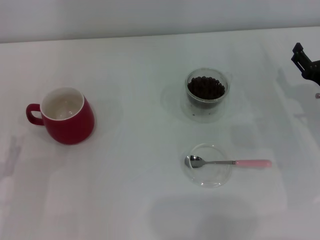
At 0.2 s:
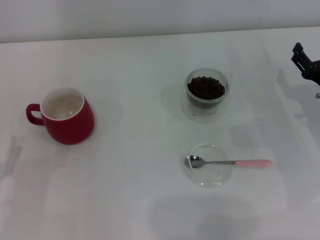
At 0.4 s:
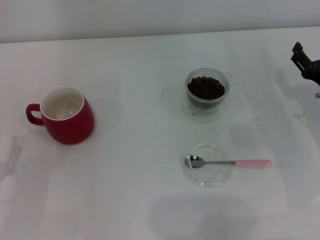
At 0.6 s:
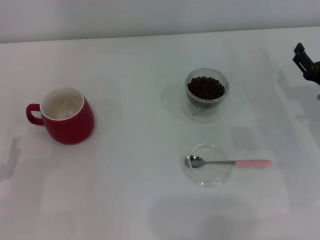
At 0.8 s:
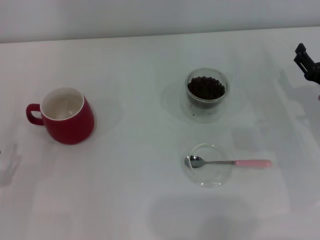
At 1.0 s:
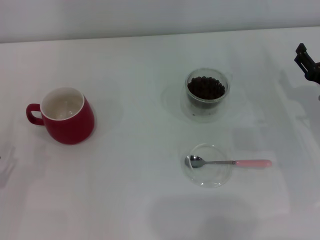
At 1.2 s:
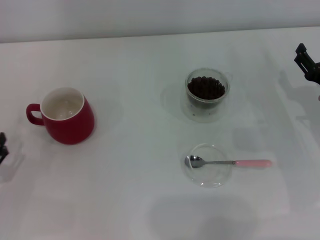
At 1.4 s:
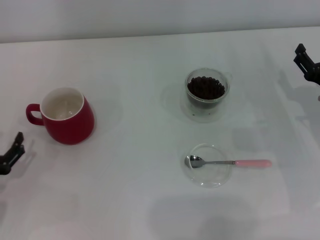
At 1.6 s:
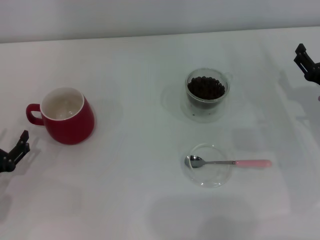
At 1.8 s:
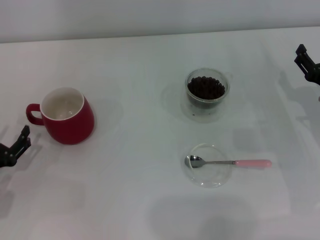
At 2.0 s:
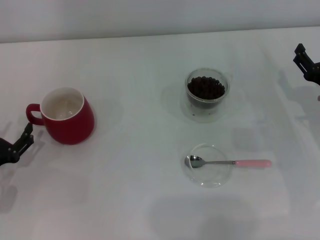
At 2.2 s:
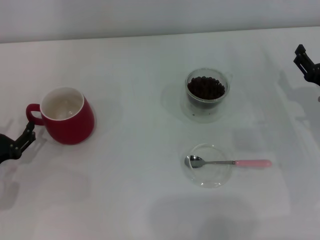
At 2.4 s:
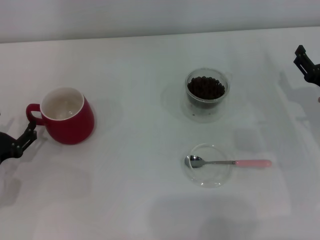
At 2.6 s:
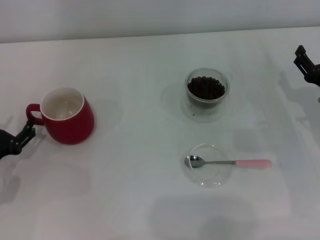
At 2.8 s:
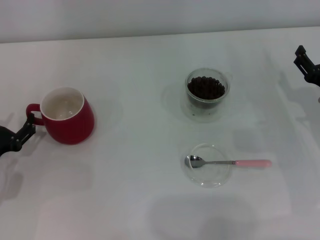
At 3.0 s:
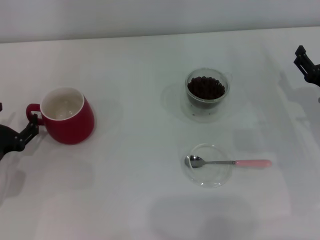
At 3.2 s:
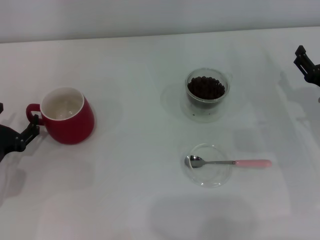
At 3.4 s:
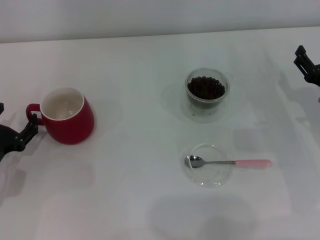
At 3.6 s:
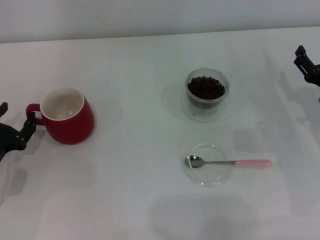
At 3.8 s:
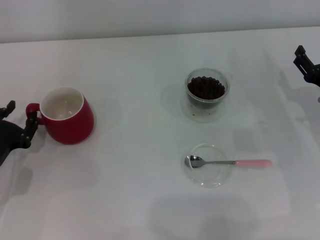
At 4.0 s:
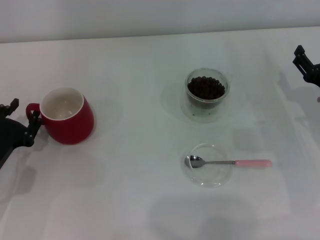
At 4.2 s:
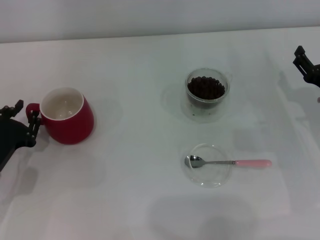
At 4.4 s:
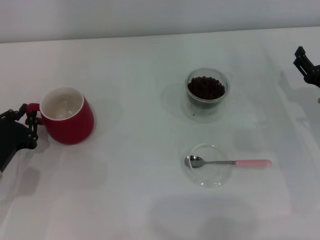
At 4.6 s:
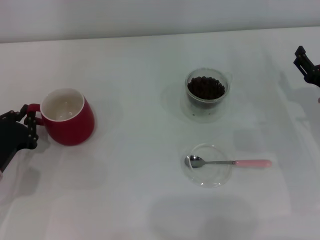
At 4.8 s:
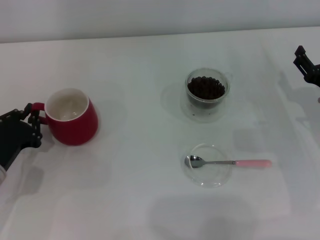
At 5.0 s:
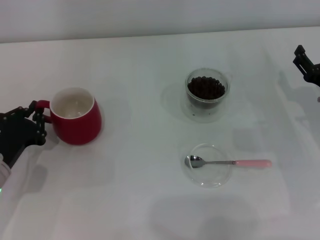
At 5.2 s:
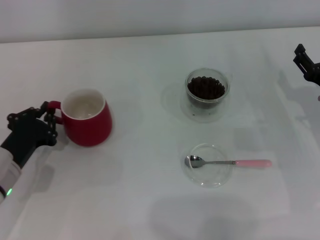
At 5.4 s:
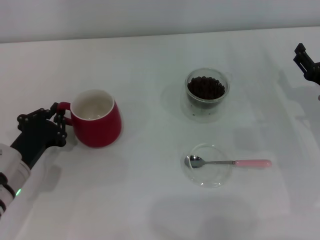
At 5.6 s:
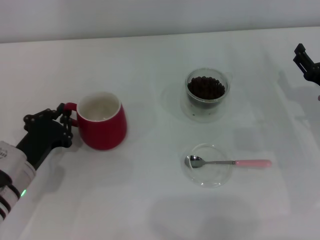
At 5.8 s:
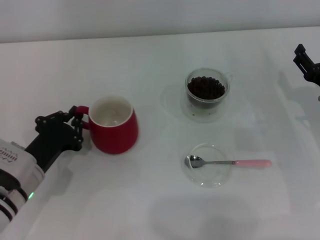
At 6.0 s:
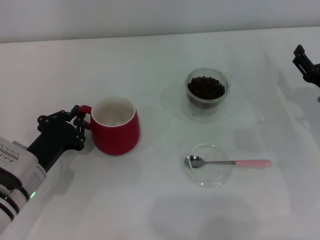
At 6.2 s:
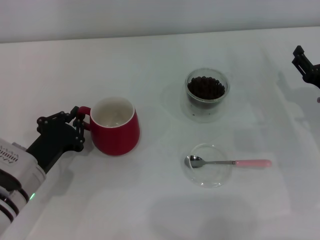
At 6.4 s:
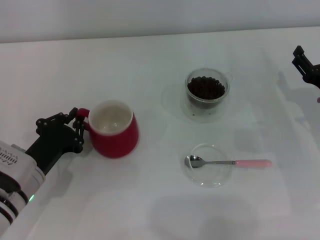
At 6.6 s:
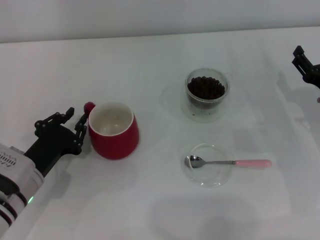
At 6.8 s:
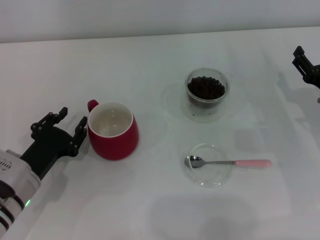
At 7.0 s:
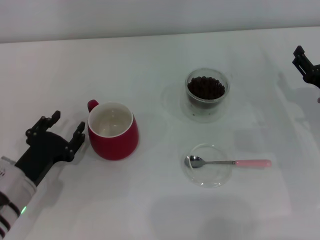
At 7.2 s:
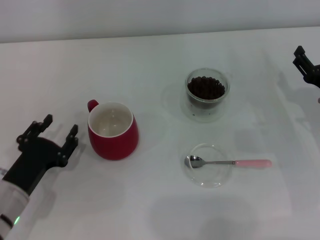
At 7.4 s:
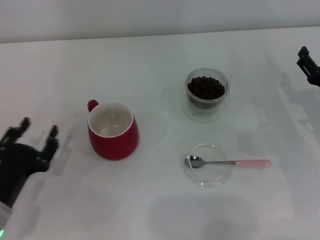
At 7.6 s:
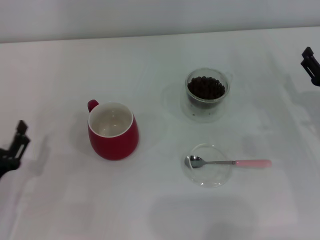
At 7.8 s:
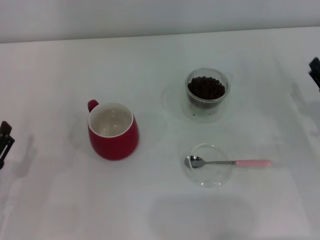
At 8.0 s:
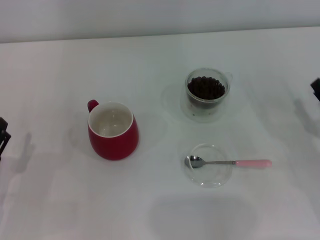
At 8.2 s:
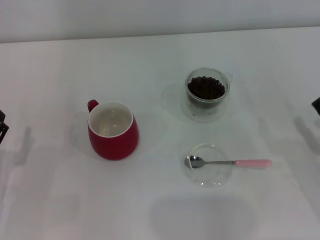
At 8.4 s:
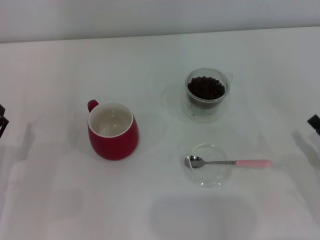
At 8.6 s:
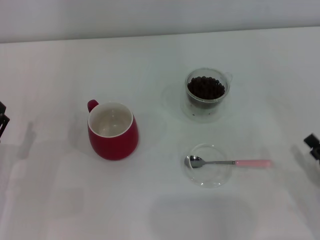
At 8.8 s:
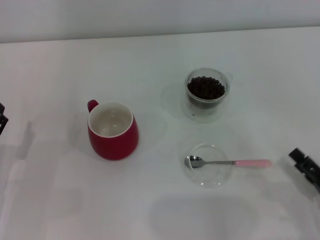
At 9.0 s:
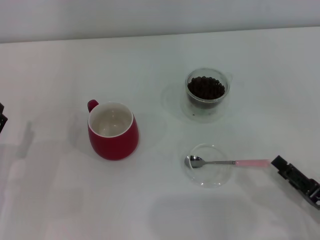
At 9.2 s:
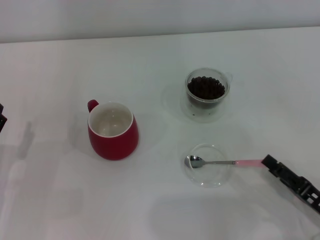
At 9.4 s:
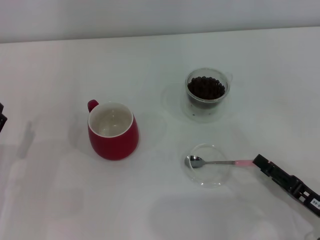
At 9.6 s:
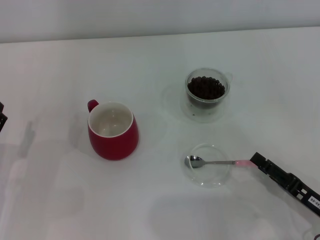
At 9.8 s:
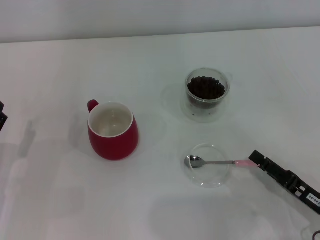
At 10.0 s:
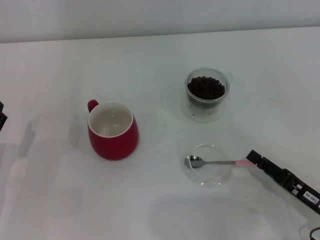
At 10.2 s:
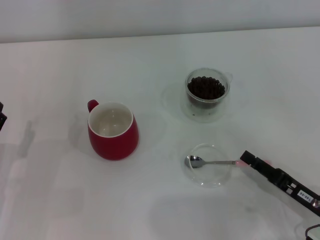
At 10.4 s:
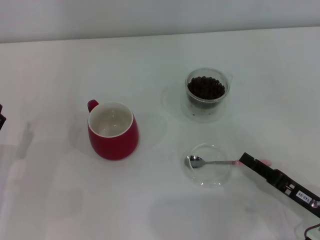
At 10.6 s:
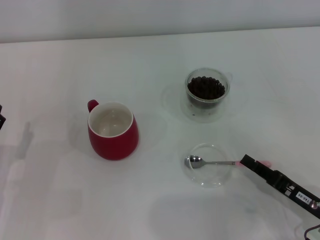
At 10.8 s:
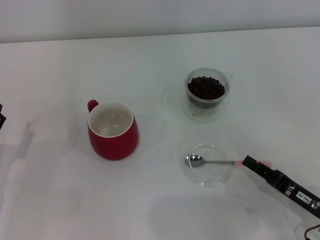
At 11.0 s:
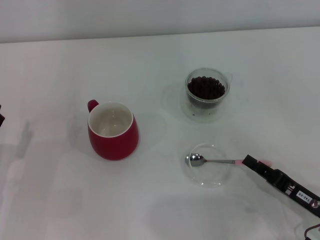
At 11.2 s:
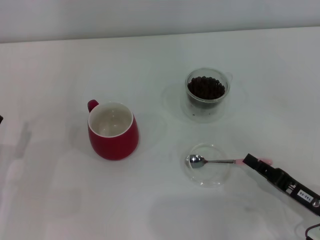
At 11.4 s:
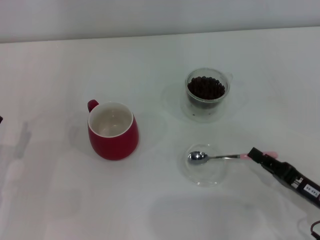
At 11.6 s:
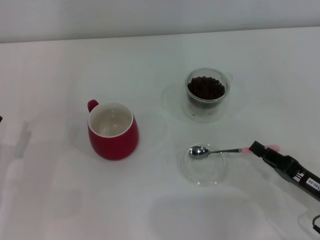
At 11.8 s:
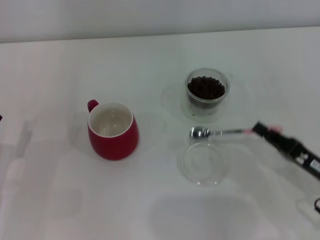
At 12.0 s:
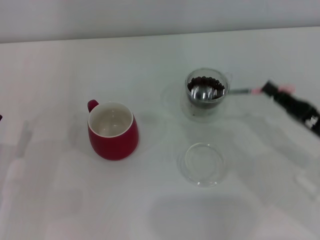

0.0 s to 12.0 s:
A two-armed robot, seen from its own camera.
Task of the whole recording: Use a pink spoon to take out the coffee beans from the glass and pour them into the red cup.
Step, 0.0 to 7.0 s: Move the cup to the center of view with the left gripper.
Step, 7.2 to 11.6 s: Pick up the spoon with the right gripper.
1.6 to 3.0 s: The grippers move only a little.
3.0 to 4.4 s: The left gripper closes.
4.4 to 6.0 s: The left gripper travels to the right by approximately 5 cm.
6.0 to 7.6 s: The left gripper travels backward and to the left by approximately 10 cm, and opens its fingers.
7.6 to 9.0 s: The right gripper heads backward, covering approximately 15 cm.
9.0 to 10.4 s: The right gripper closes.
10.4 to 12.0 s: The right gripper is displaced forward and upward by about 10 cm, and closes.

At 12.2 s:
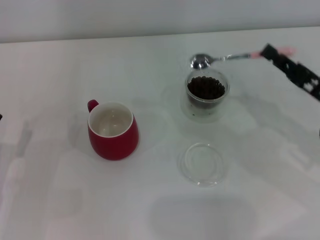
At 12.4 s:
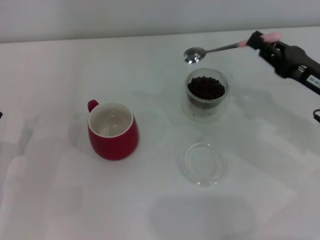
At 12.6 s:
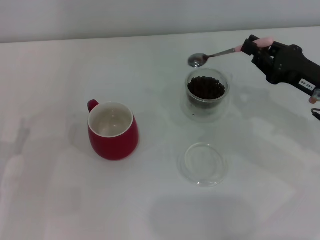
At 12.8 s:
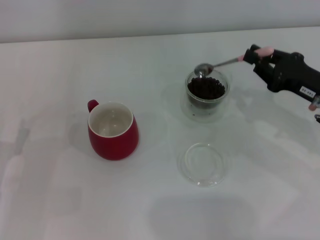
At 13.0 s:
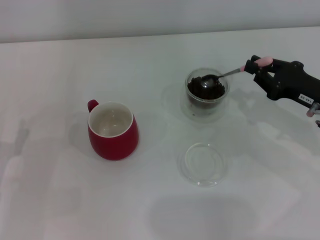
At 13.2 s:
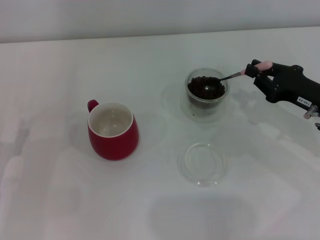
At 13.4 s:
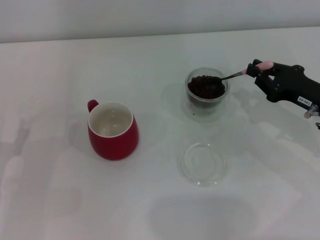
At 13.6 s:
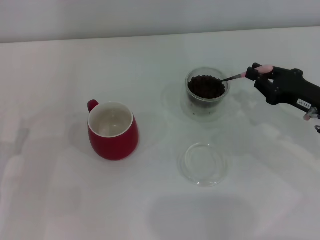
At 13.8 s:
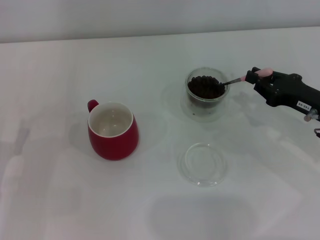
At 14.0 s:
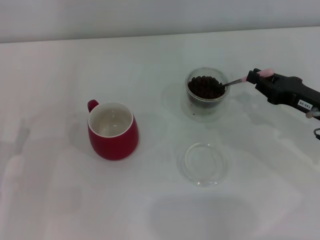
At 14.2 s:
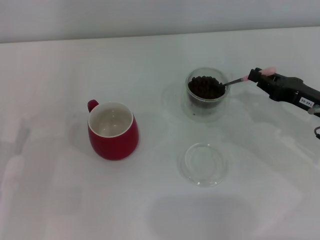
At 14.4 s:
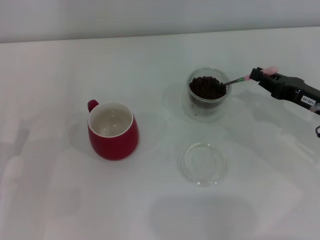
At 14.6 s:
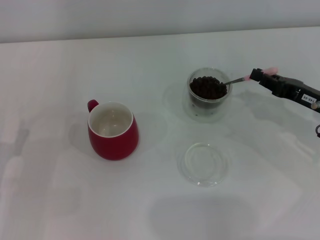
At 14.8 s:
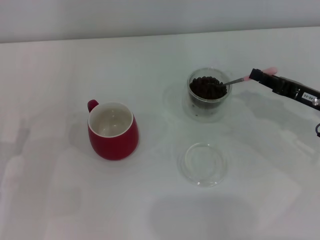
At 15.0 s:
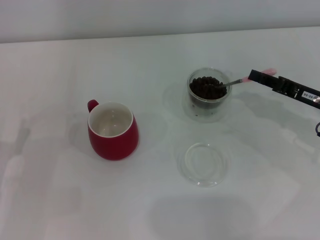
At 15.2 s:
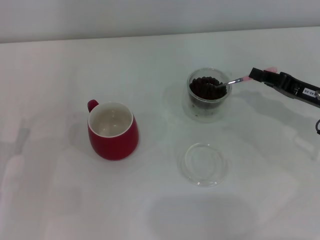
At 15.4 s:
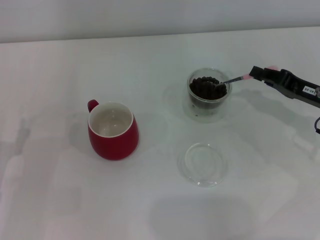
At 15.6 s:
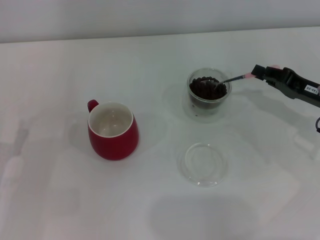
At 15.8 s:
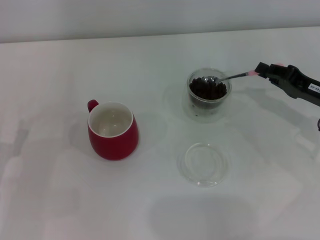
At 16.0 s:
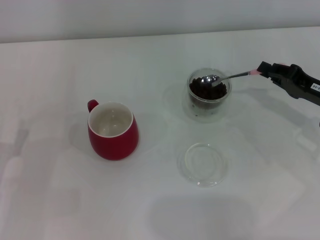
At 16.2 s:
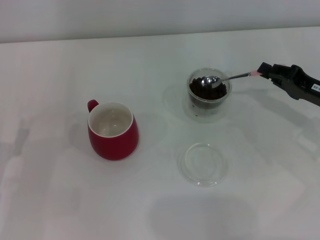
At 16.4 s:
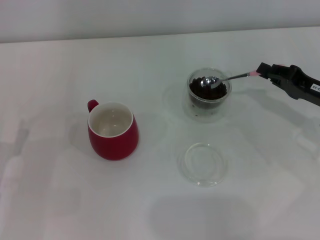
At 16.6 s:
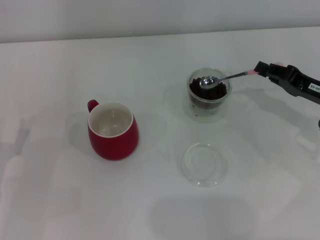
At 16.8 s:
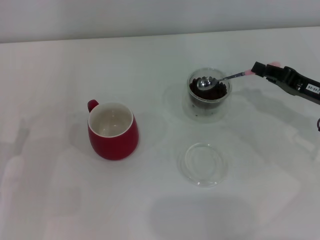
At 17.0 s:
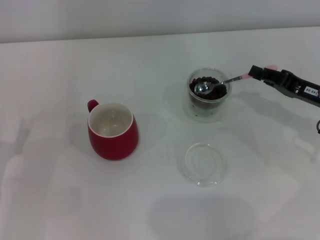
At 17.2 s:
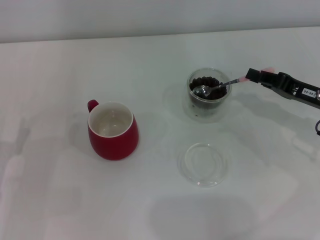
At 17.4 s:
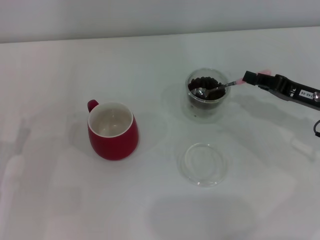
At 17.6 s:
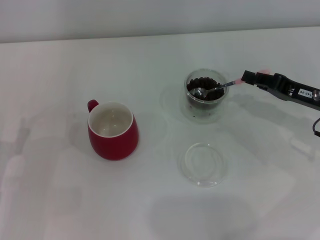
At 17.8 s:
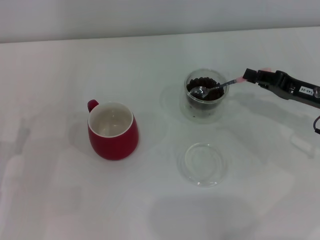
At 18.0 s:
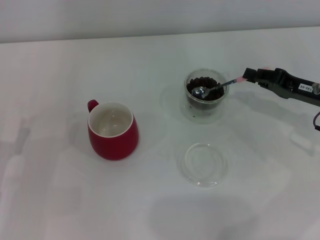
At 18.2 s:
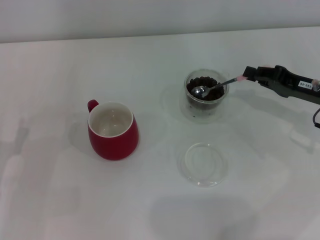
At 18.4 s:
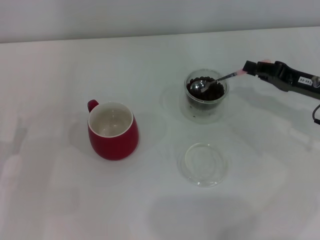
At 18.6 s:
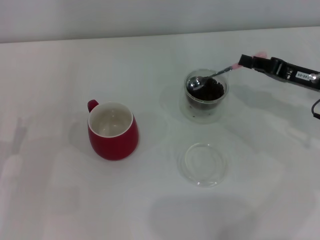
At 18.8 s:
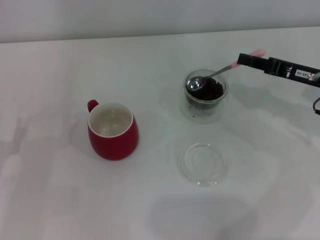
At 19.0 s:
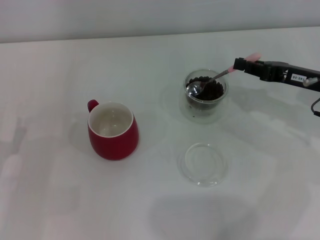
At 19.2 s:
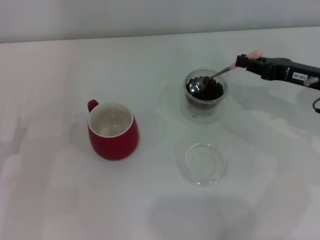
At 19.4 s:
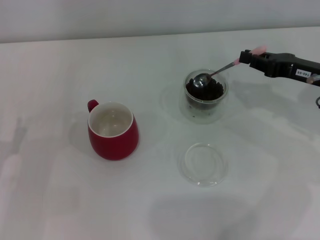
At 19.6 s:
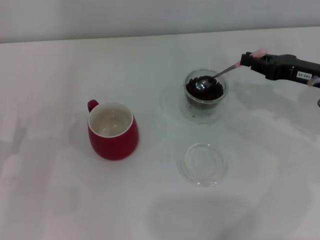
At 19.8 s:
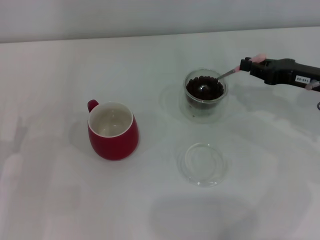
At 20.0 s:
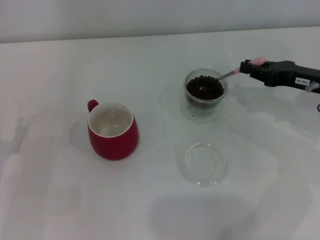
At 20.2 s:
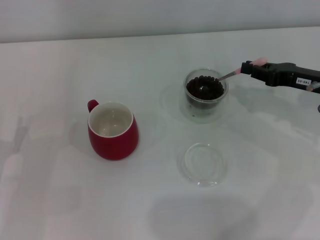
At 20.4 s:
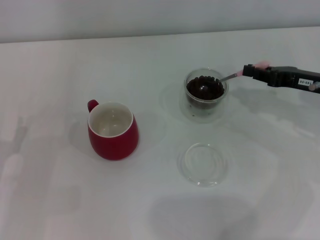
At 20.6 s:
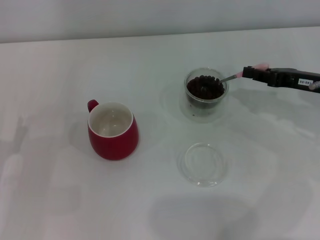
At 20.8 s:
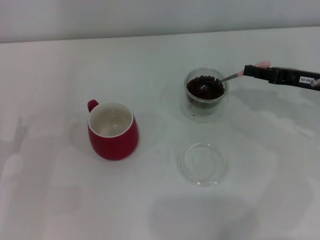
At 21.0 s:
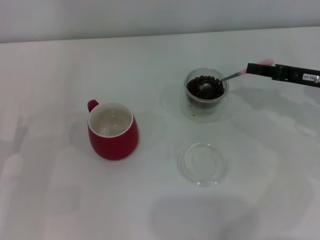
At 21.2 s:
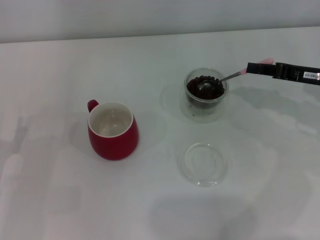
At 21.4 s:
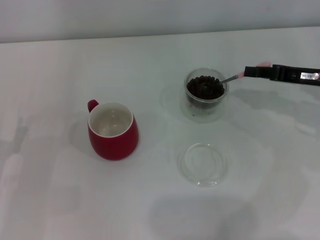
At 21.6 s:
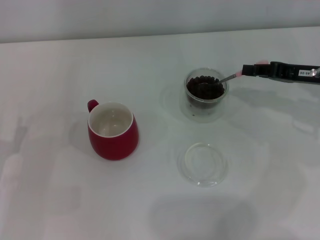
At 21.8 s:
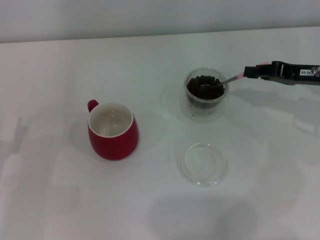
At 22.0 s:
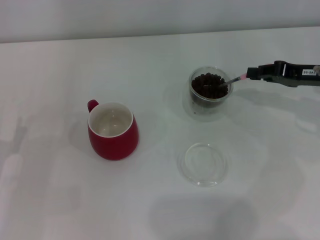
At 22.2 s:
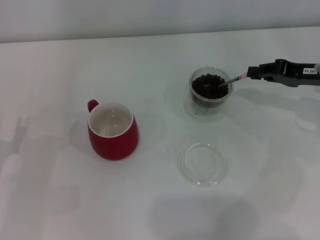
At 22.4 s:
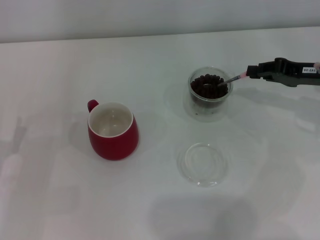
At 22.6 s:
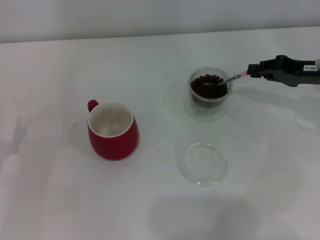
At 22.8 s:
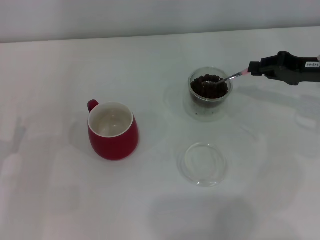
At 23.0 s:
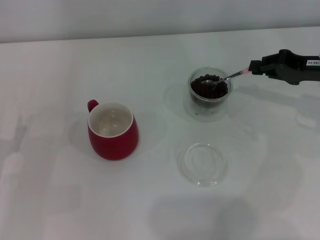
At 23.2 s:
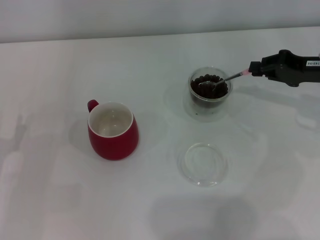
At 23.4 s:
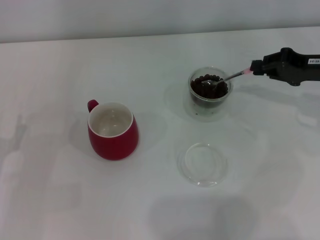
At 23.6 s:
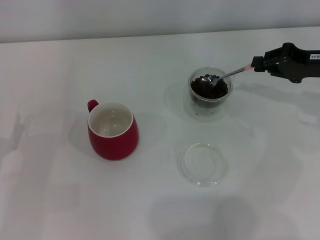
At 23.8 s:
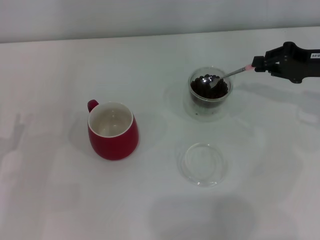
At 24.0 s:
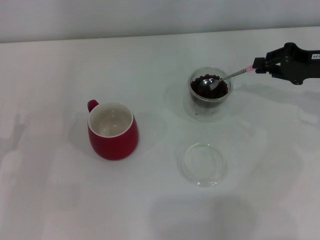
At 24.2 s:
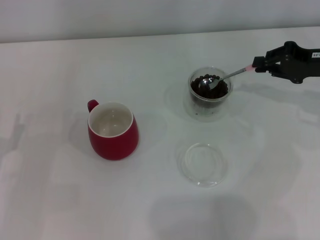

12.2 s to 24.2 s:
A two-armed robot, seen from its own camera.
Task of the whole recording: Use a pink spoon to take out the coffee beans from the glass and pour them into the red cup.
15.2 to 18.2 s: There are only small adjustments of the grippers.
19.8 to 21.2 s: The grippers stay close to where they were, moving slightly.
21.2 to 22.6 s: There are only small adjustments of the grippers.
22.6 to 24.2 s: The grippers stay close to where they were, moving slightly.
